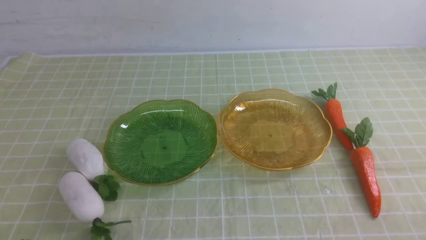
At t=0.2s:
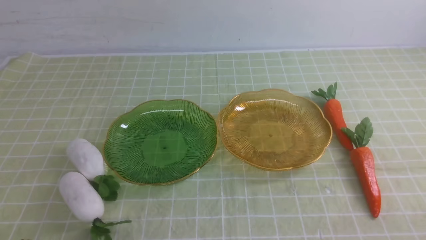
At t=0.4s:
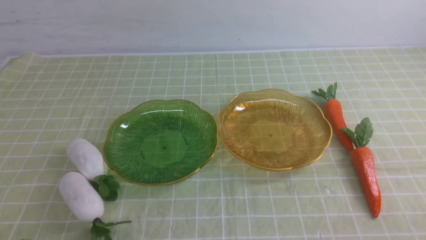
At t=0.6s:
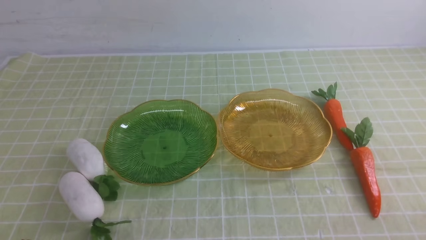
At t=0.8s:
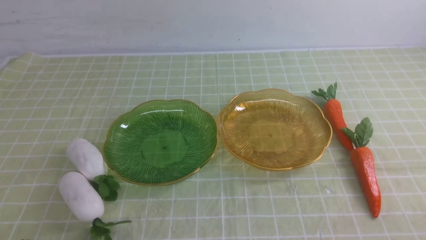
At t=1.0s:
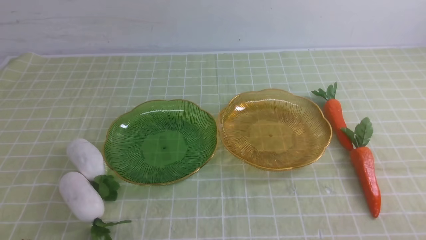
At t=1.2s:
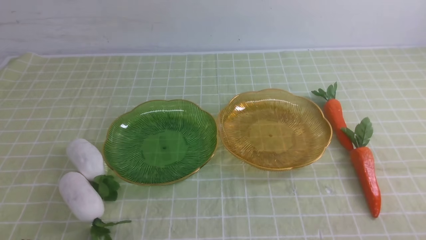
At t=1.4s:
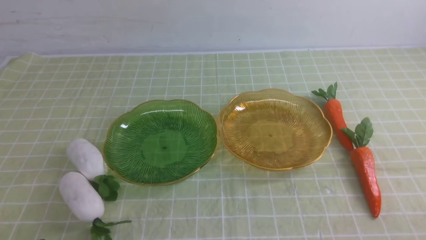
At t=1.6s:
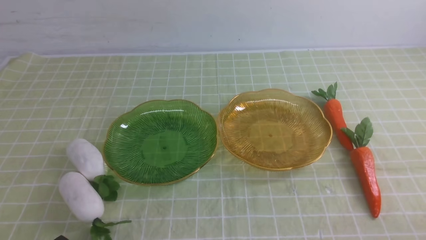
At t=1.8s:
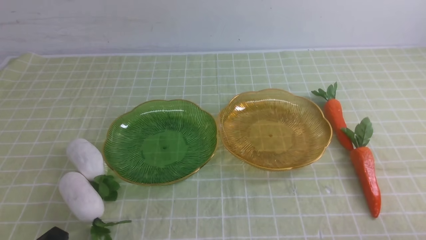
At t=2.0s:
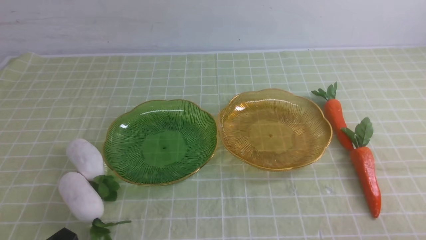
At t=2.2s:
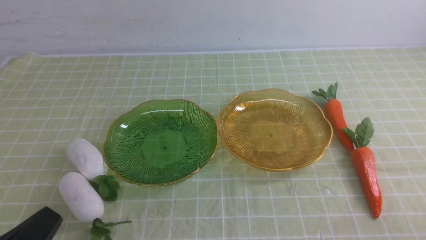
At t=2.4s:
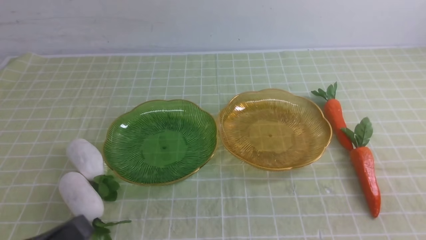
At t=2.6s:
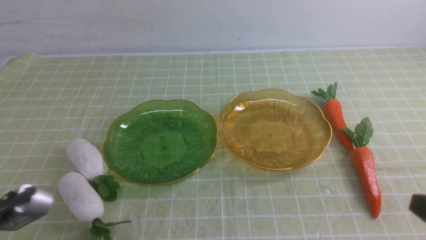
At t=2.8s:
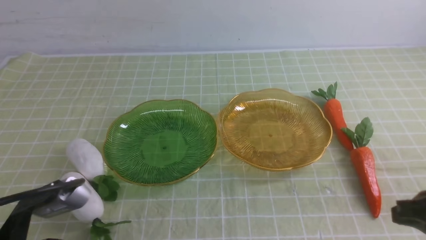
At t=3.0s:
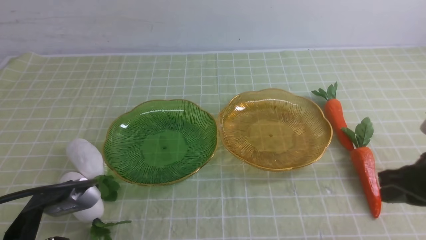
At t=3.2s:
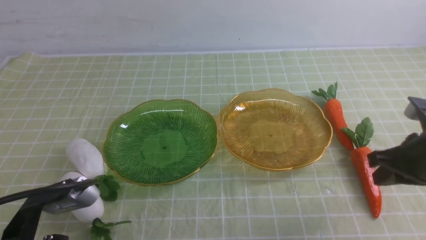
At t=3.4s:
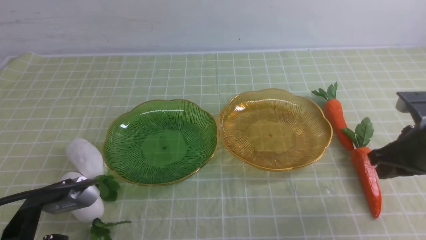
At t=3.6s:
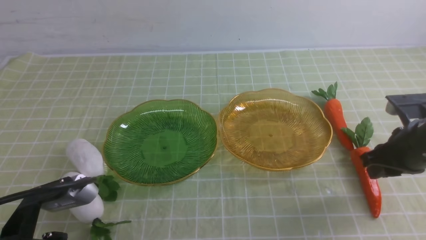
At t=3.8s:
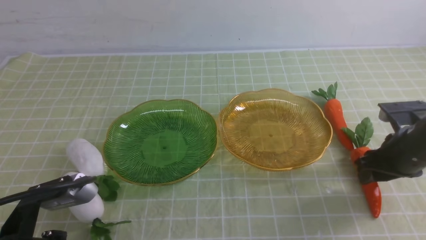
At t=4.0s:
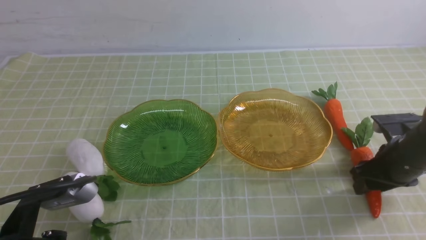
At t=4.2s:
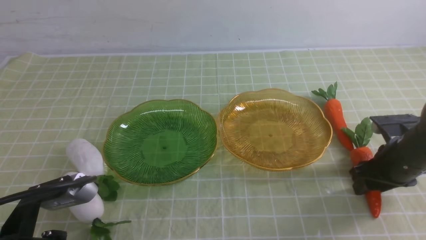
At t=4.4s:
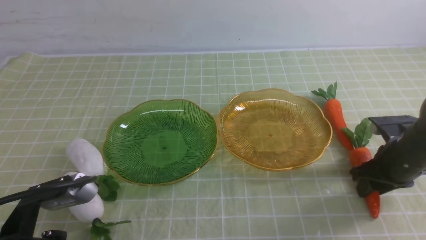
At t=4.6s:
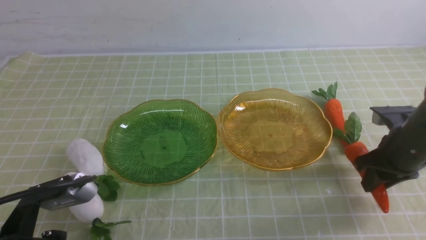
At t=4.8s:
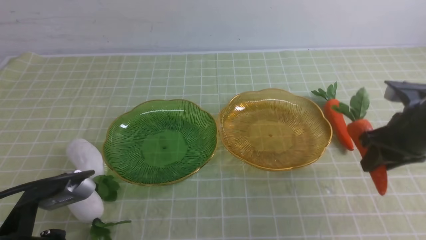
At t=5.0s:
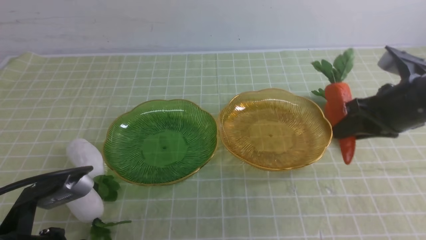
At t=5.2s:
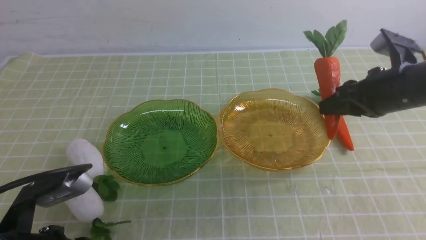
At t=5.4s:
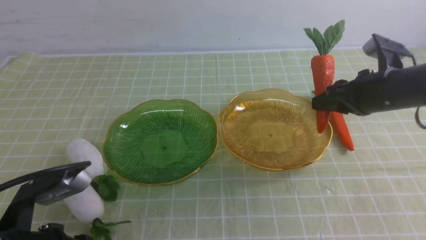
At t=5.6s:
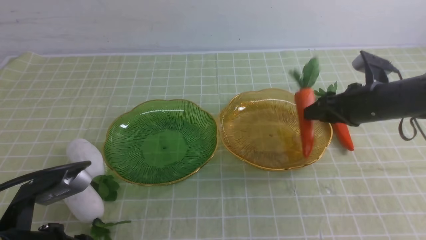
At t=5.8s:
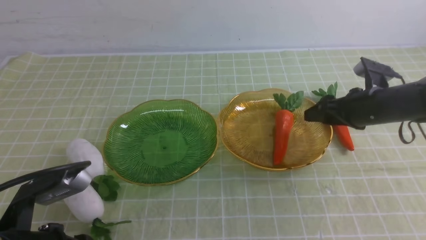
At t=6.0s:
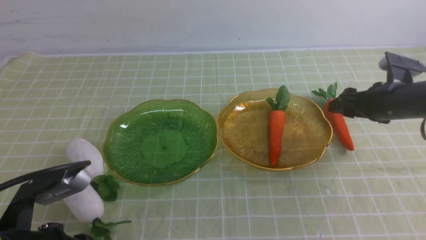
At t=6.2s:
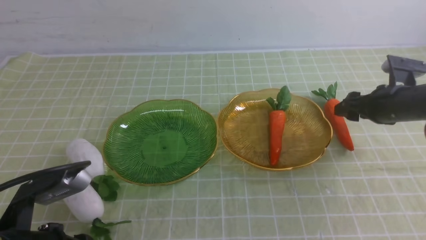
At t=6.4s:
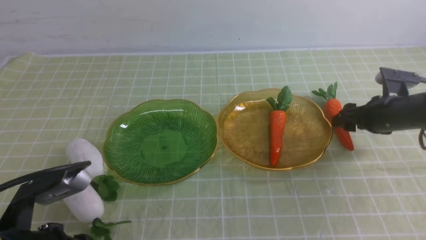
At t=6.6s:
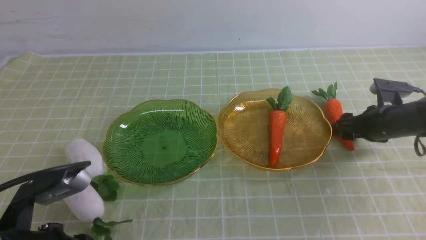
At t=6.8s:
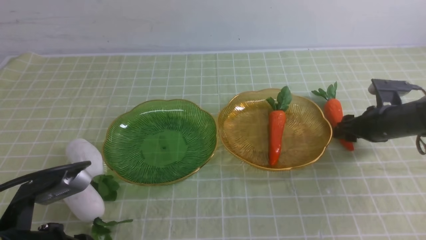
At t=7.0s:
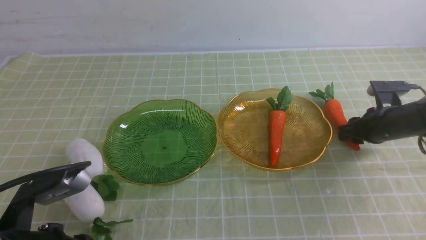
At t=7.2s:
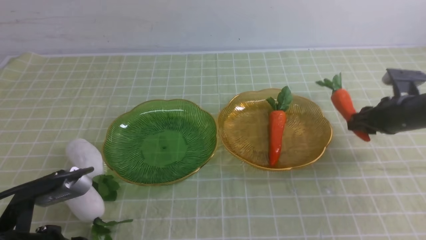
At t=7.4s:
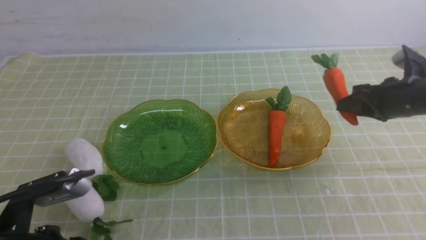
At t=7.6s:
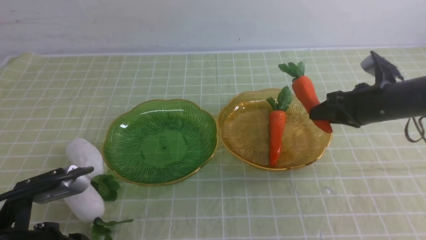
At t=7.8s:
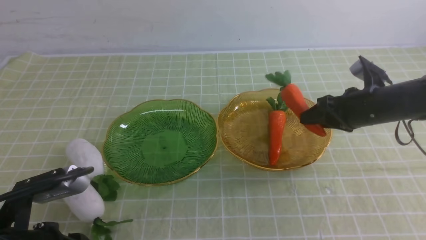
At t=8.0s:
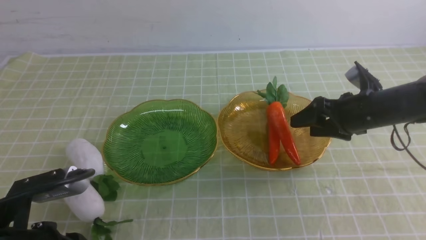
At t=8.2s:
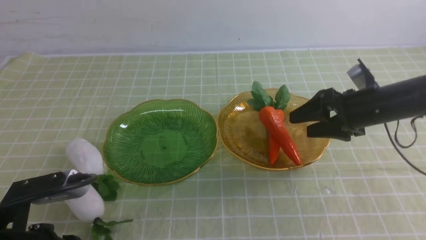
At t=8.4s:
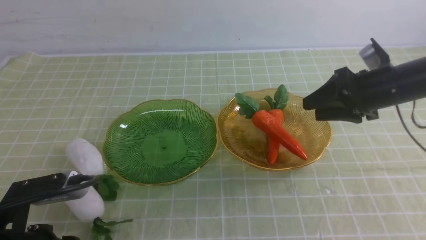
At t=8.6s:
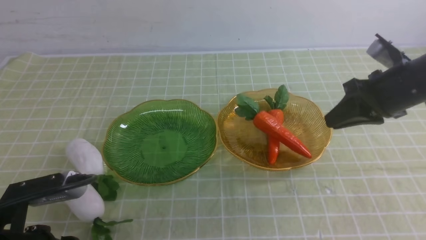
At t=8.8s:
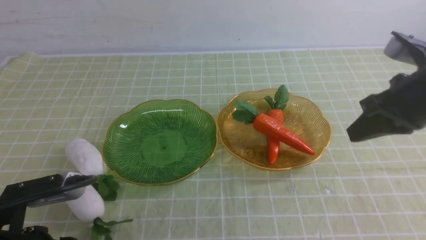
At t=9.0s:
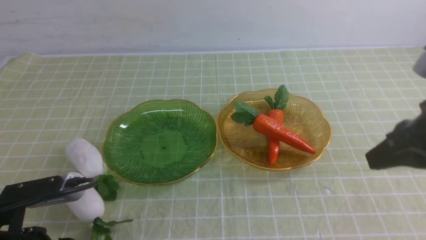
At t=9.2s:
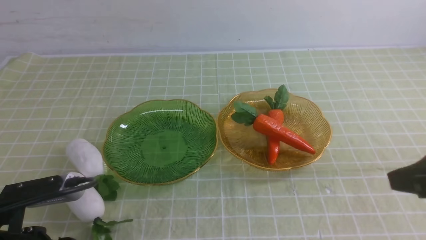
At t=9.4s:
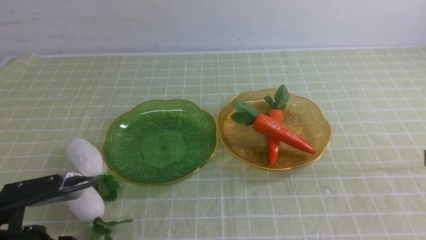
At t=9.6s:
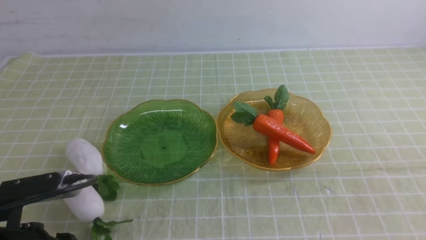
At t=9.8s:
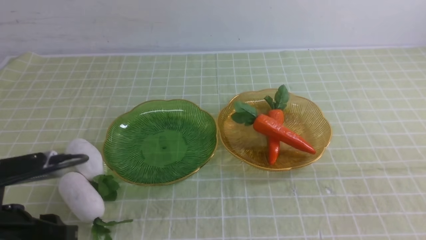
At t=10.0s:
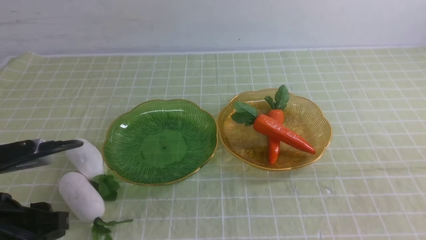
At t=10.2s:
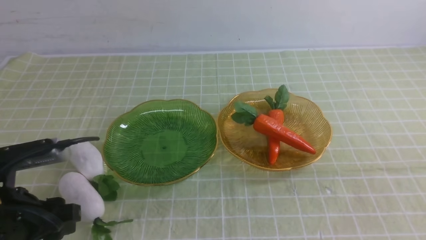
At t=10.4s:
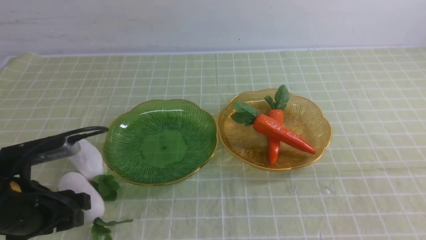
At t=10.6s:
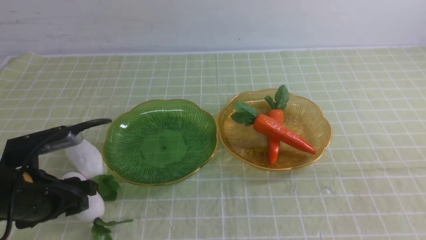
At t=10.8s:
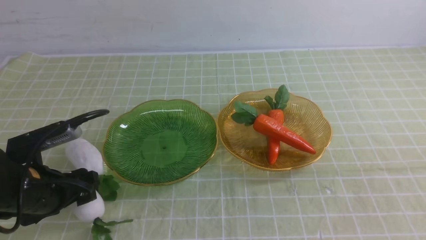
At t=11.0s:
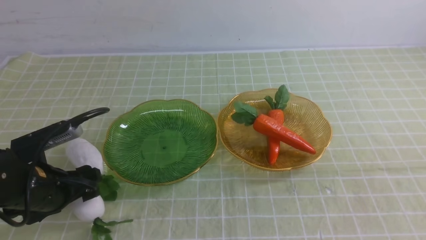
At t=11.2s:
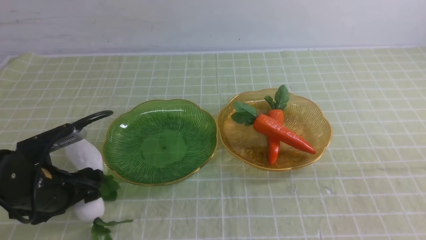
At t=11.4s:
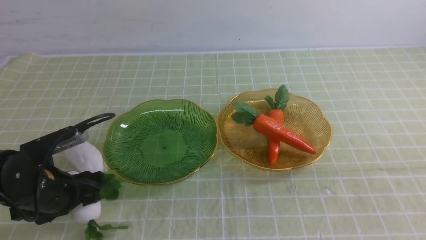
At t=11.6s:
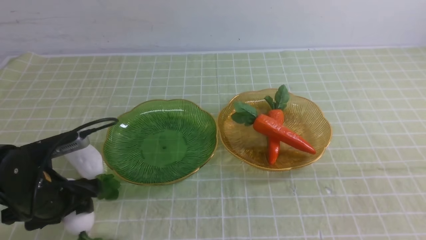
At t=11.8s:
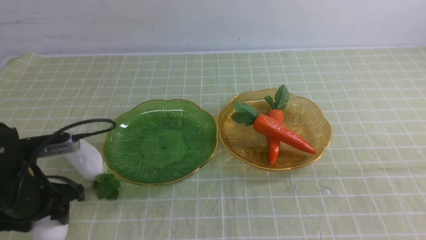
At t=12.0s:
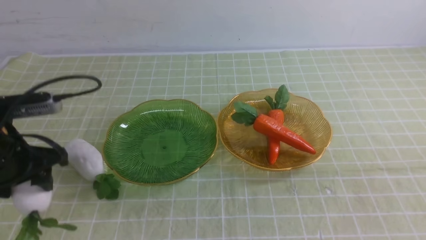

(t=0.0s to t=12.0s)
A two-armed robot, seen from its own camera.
Step, t=0.0s - t=8.4s: use the right arm to grab a carrot and put it into the right plate.
t=1.6s - t=3.0s: The left gripper is displaced upward and forward by about 10 cm, while the right gripper moves forward and upward, roughly 15 cm.
t=3.0s - t=4.4s: The right gripper shifts some 15 cm forward and downward, and opens.
t=4.4s - t=6.0s: The right gripper travels forward by approximately 10 cm, travels upward and back again, about 10 cm each way, and opens up.
t=6.0s - t=7.6s: The right gripper reaches approximately 5 cm downward, then returns, and closes.
t=7.6s - t=9.0s: The right gripper moves backward and upward, about 20 cm, and closes its fingers.
t=9.0s - t=10.4s: The right gripper heads backward, covering approximately 10 cm. Meanwhile the left gripper moves forward, approximately 5 cm, and opens its fingers.
t=10.4s - t=12.0s: The left gripper is displaced forward by approximately 5 cm, and moves roughly 5 cm downward and comes back.

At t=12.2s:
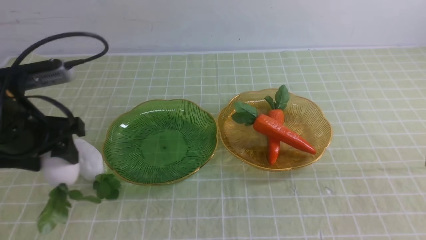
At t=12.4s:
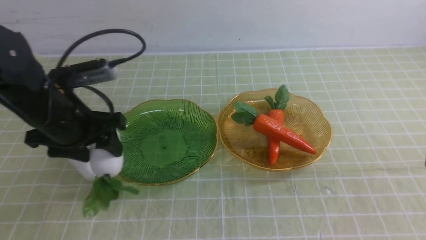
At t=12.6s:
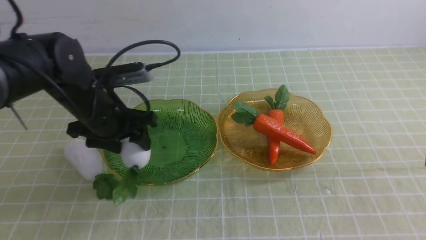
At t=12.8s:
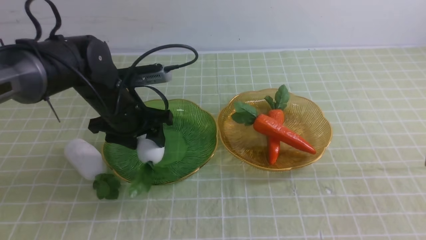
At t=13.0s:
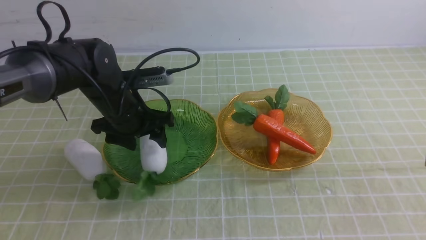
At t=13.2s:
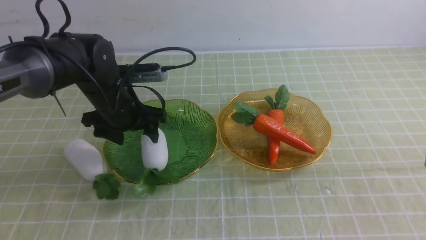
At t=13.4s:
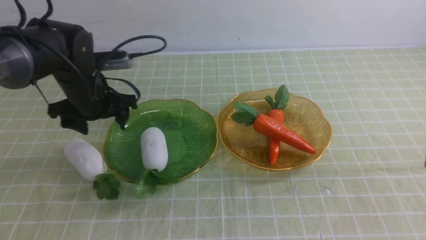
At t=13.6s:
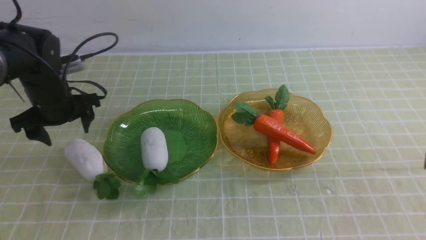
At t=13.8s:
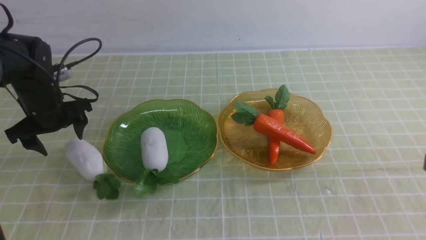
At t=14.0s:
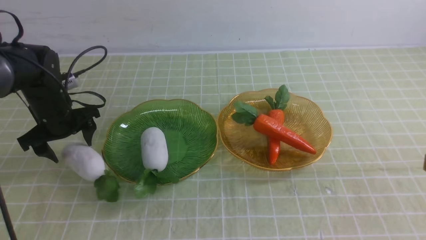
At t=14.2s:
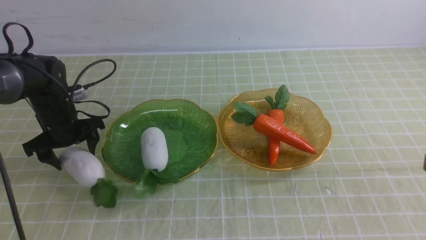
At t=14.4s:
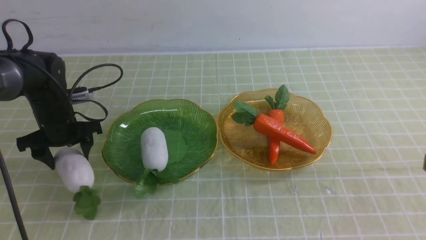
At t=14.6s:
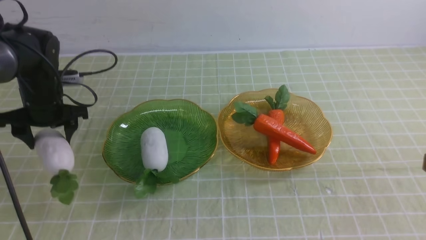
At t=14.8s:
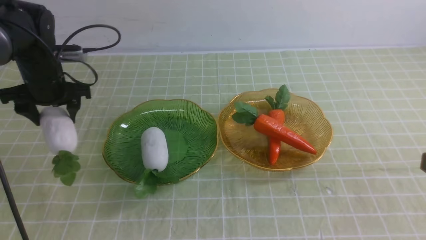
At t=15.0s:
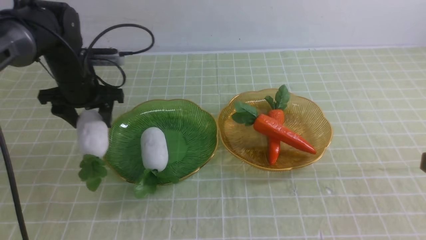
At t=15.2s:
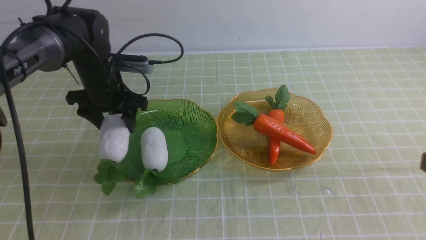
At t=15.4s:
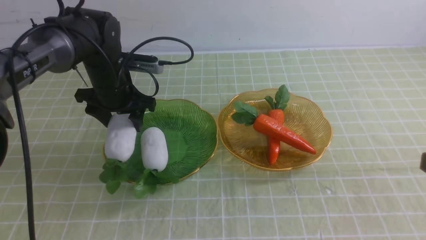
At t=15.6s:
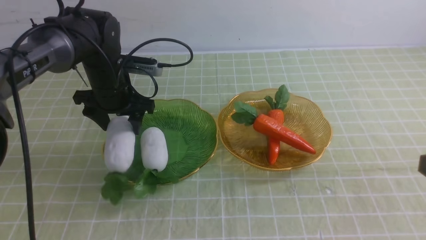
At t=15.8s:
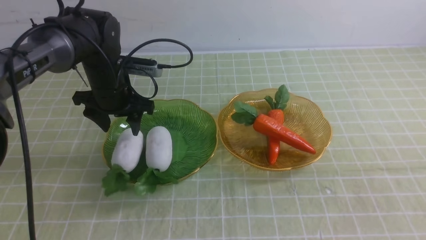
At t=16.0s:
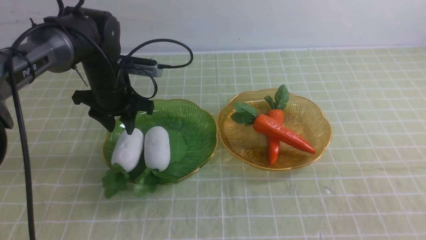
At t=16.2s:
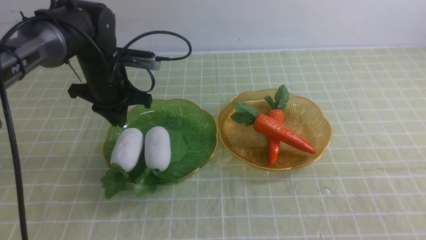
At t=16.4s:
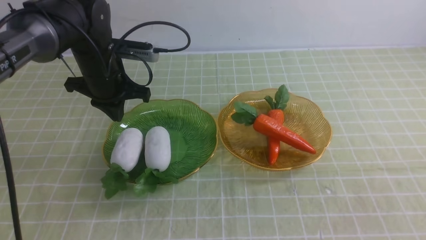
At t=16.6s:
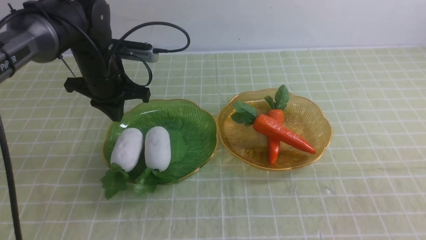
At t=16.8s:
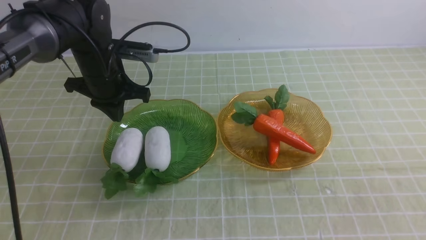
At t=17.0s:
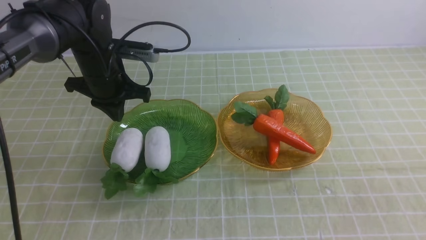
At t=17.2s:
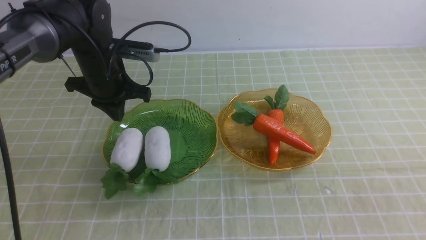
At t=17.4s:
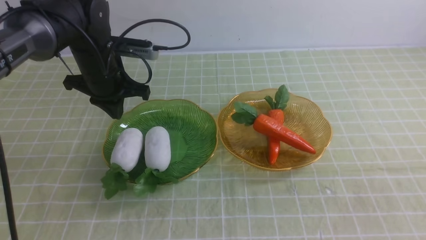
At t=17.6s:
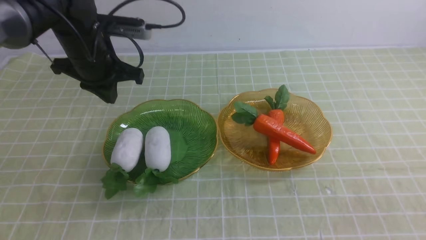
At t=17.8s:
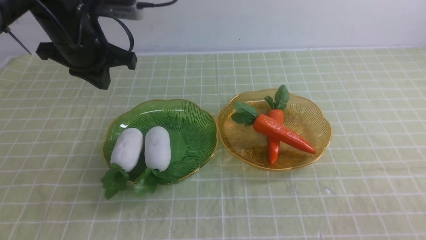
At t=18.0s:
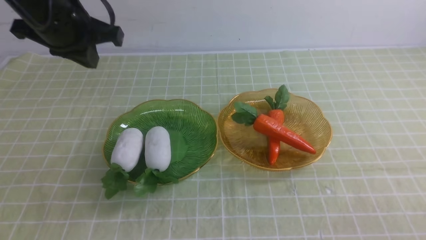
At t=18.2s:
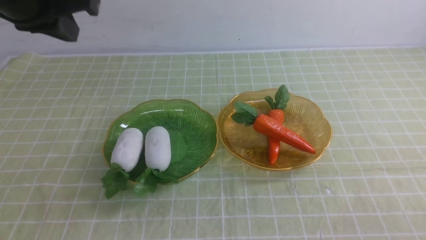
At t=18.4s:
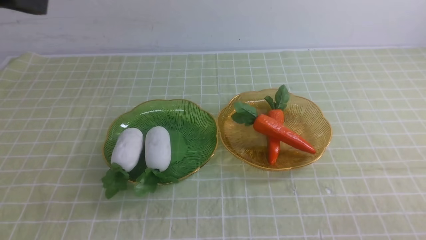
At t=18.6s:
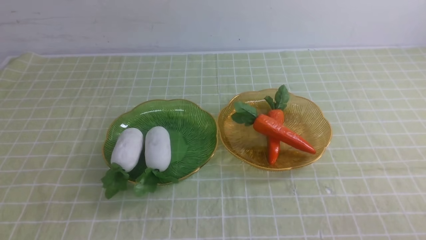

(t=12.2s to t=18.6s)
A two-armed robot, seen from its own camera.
Step, t=12.2s - t=16.0s: use the left arm to grab a radish and put it into the left plate.
t=12.2s - t=13.8s: The left gripper heads forward and downward, covering roughly 15 cm.
t=13.8s - t=15.4s: The left gripper heads to the right, covering approximately 10 cm.
t=15.4s - t=17.0s: The left gripper closes up, while the right gripper shifts approximately 5 cm backward.
t=17.0s - t=18.6s: The right gripper is displaced downward by about 15 cm. The left gripper heads upward and backward, covering about 30 cm.
